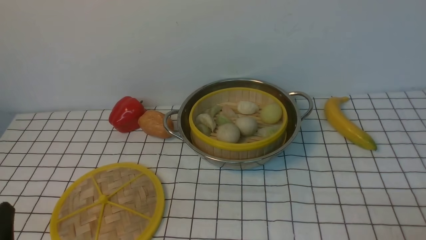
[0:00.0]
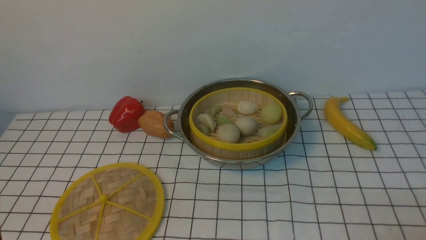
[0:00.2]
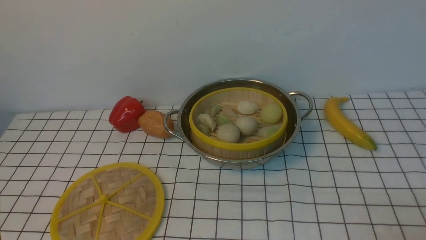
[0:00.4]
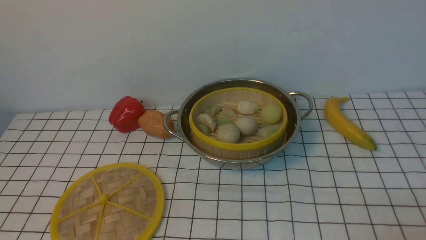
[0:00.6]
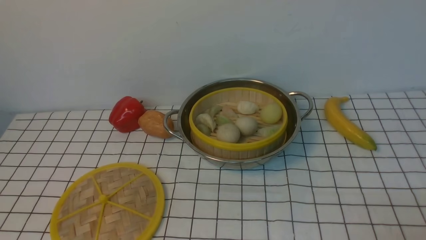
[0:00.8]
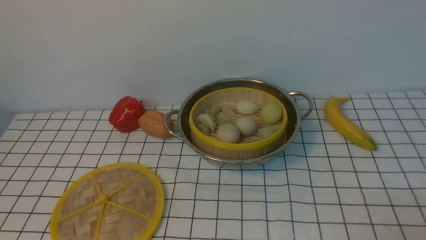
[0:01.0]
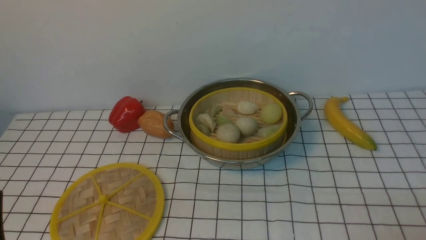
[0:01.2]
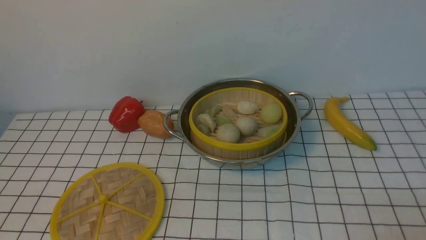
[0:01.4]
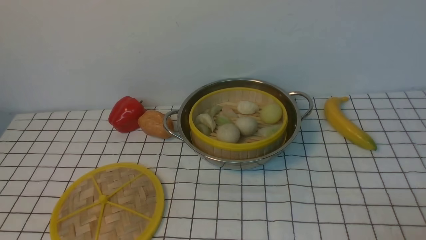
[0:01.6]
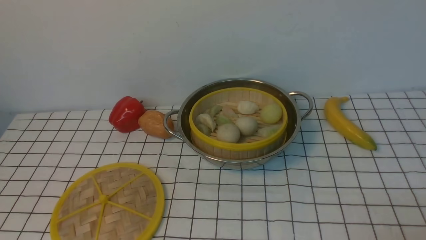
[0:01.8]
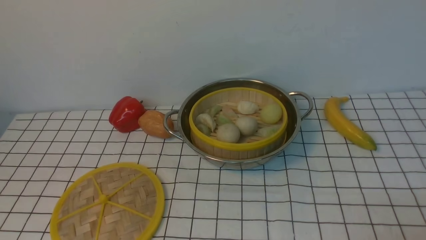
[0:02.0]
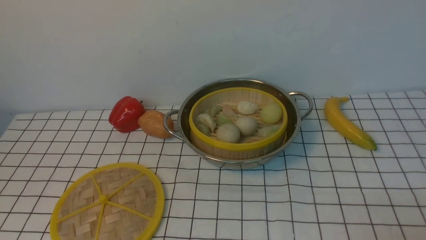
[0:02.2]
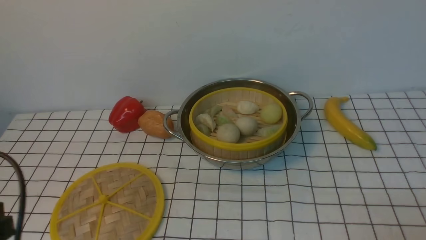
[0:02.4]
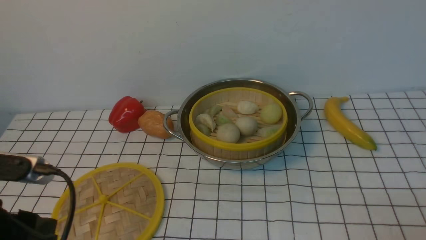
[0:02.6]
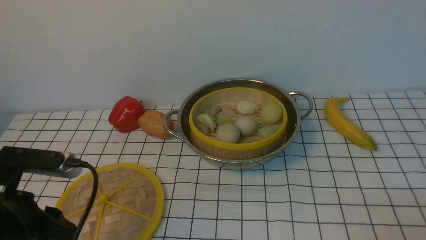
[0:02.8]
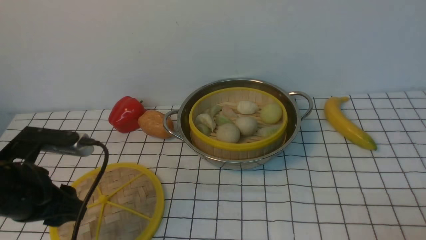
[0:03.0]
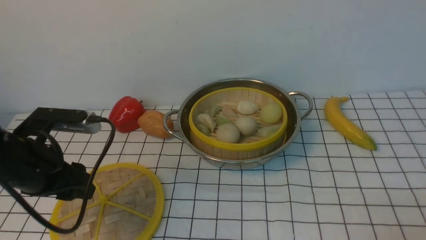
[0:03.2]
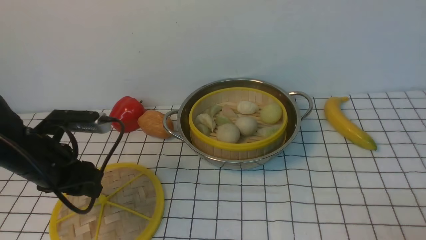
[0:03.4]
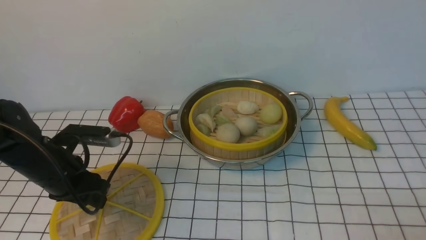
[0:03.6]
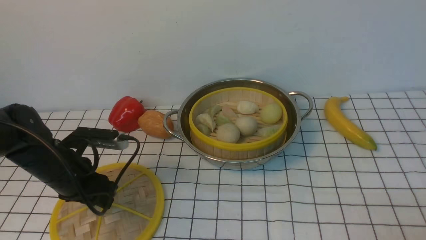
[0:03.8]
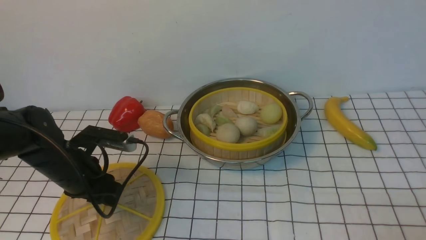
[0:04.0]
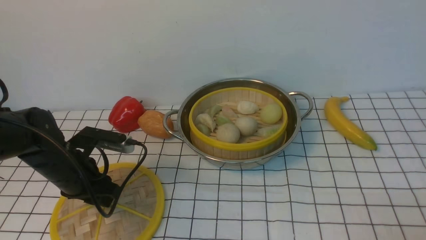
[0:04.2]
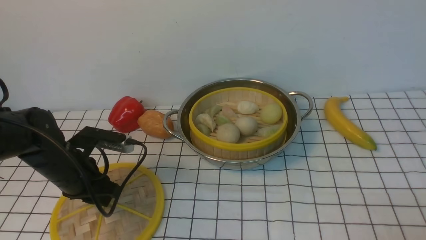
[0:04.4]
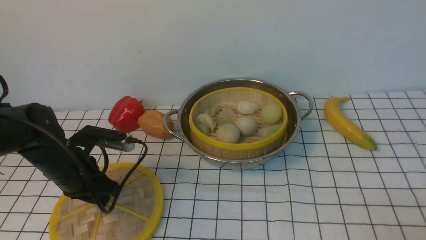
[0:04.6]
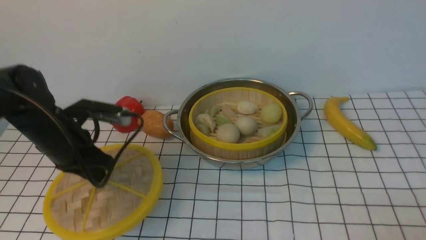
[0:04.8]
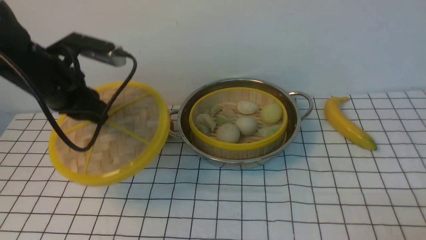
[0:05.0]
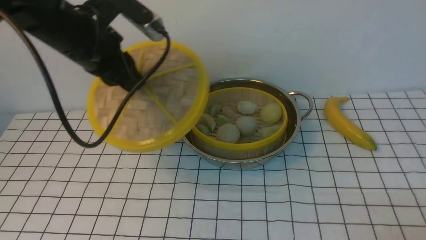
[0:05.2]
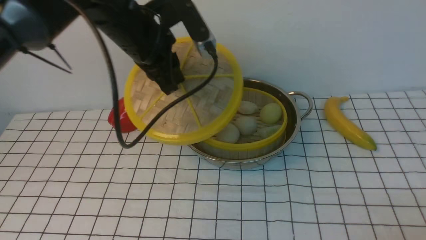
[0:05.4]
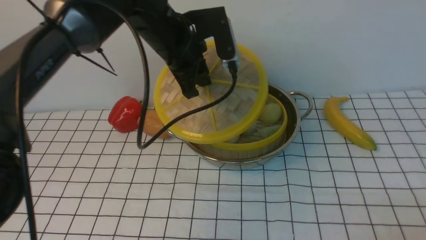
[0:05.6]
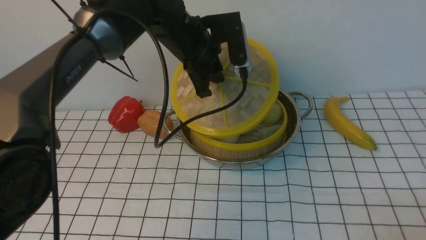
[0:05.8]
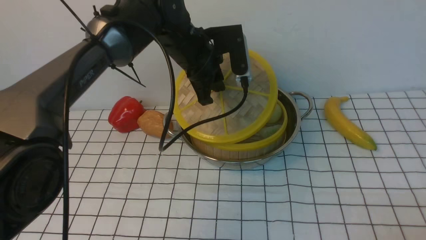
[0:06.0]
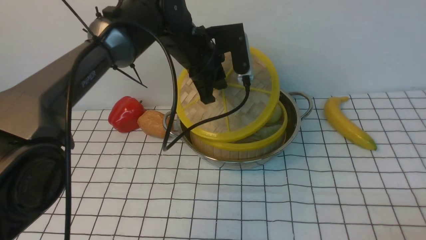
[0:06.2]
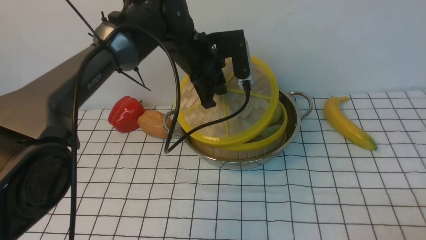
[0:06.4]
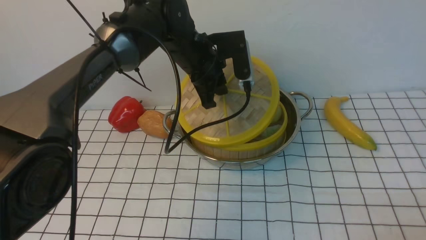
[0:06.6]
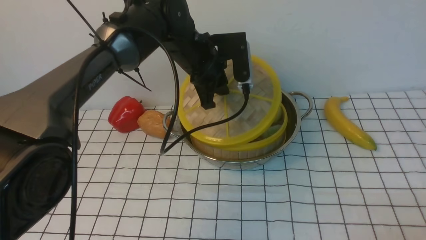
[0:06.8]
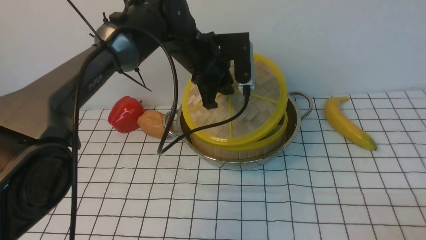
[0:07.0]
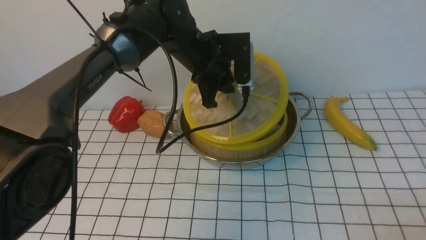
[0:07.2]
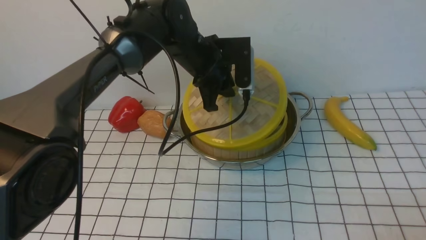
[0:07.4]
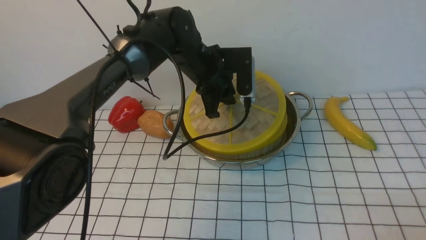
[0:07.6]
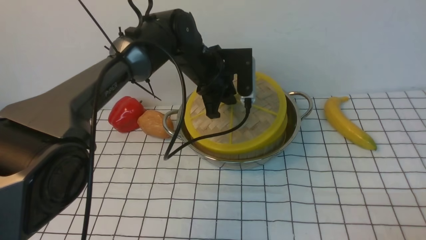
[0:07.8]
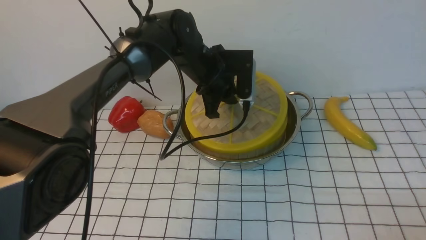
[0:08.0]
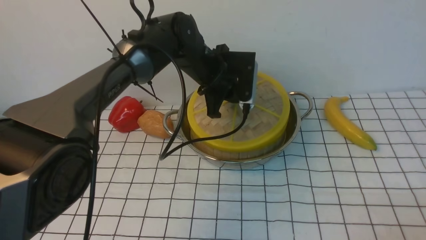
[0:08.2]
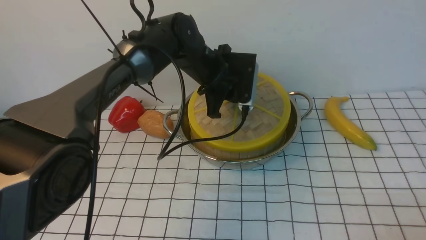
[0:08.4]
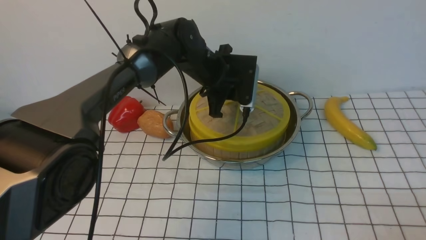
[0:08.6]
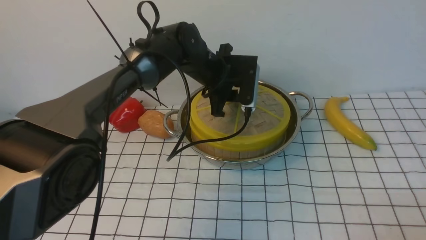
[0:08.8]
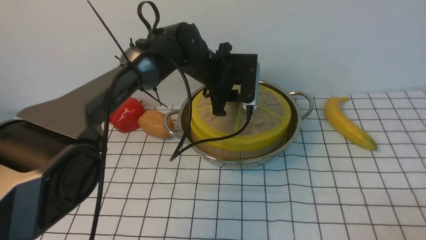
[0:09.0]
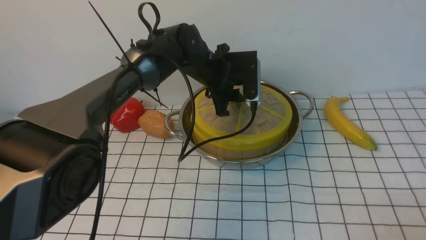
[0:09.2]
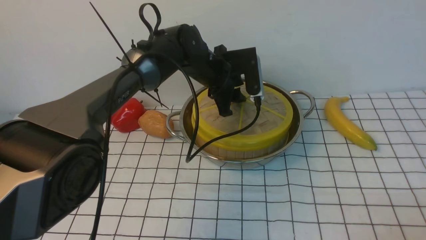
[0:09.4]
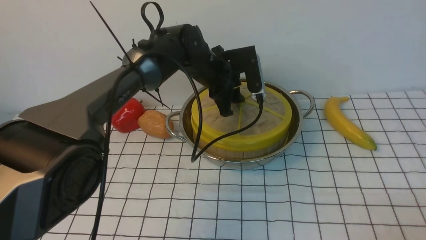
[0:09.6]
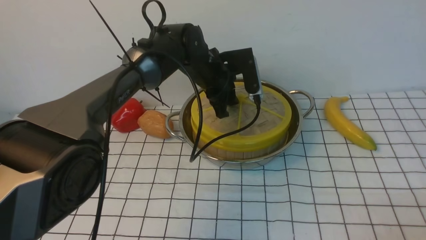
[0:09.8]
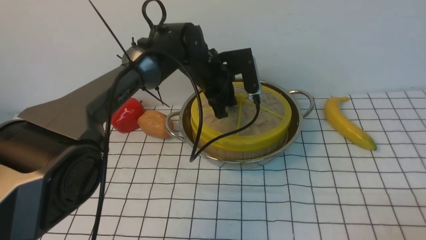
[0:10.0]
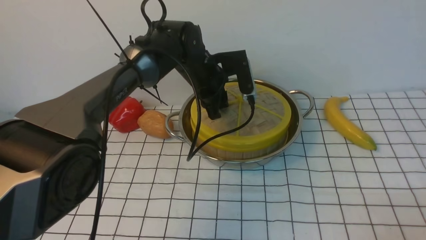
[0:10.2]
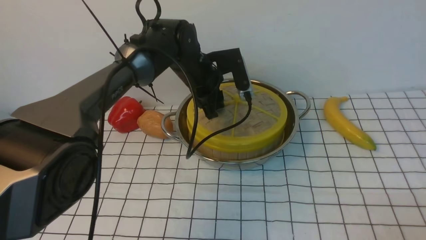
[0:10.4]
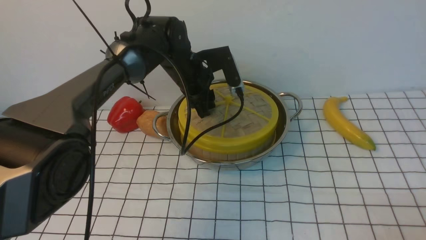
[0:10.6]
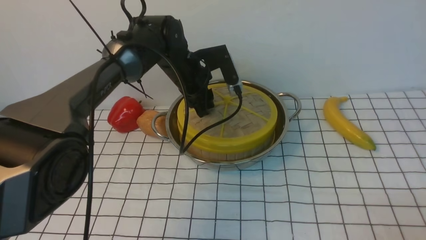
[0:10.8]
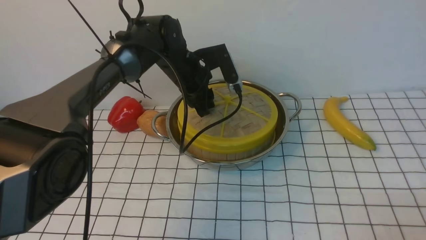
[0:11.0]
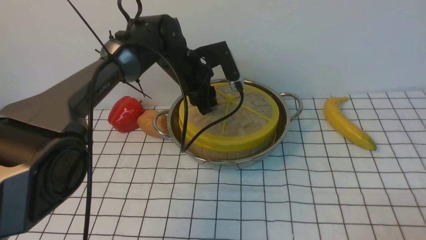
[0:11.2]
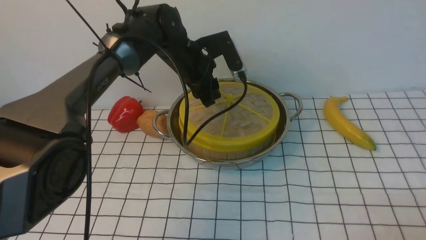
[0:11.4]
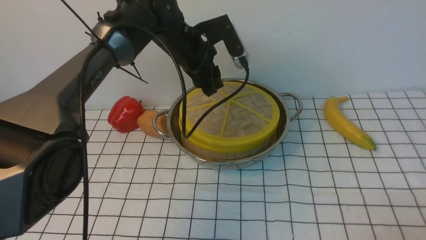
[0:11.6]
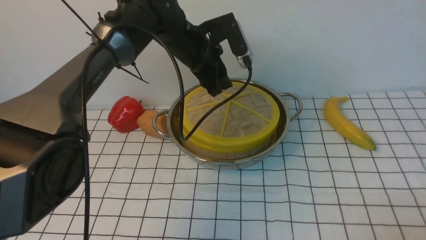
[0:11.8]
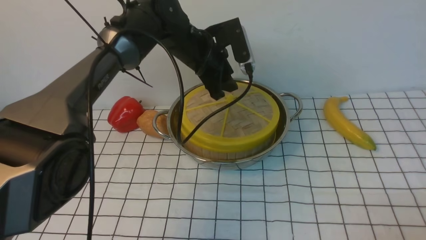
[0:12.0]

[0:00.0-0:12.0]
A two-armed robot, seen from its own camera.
Task of the whole recording: place the steamer in the pot on the white tablecloth, and put the lid on the steamer.
Step, 0:00.0 to 0:04.6: use the left arm to lift the lid of the steamer.
0:01.6 to 0:03.0: The left gripper goes approximately 15 cm forward, and closes up.
0:03.0 to 0:04.4: The left gripper shifts approximately 15 cm forward and downward.
0:04.4 to 0:06.0: The left gripper shifts some 25 cm to the right, upward and forward.
0:07.6 to 0:09.0: The left gripper opens its fingers.
0:10.4 to 0:12.0: The grippers stay close to where they were, moving slightly.

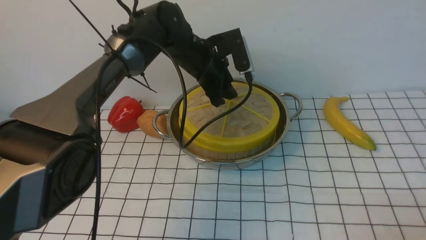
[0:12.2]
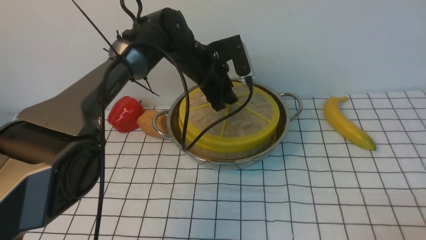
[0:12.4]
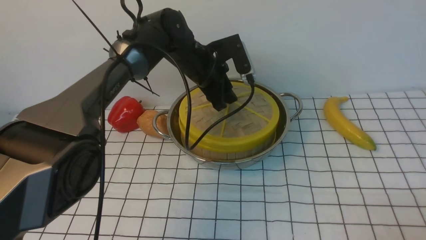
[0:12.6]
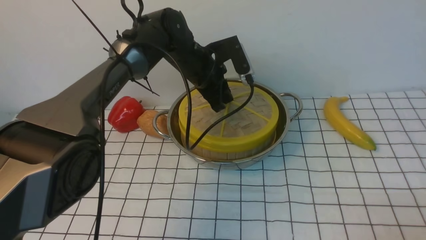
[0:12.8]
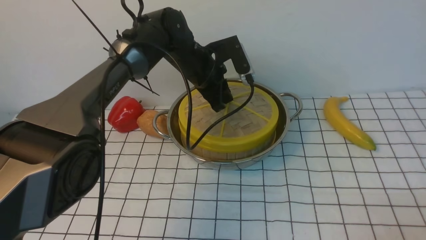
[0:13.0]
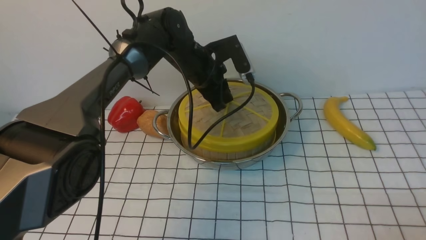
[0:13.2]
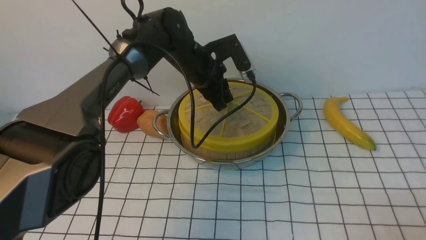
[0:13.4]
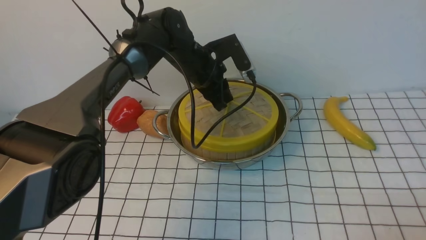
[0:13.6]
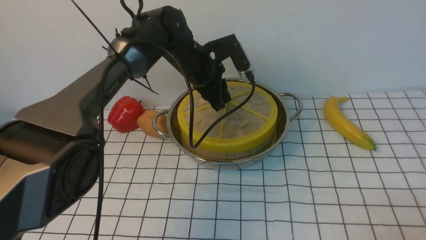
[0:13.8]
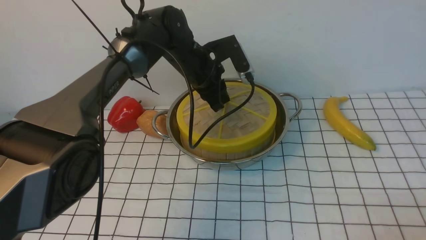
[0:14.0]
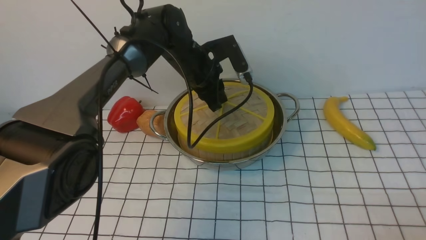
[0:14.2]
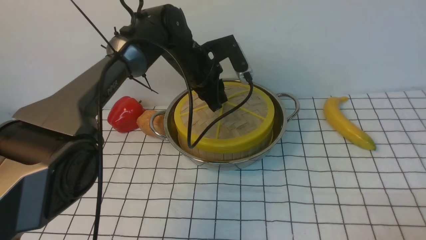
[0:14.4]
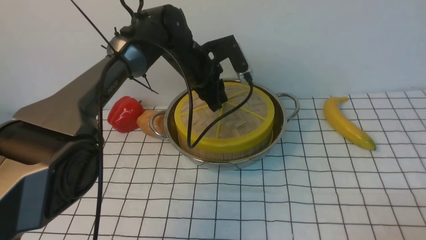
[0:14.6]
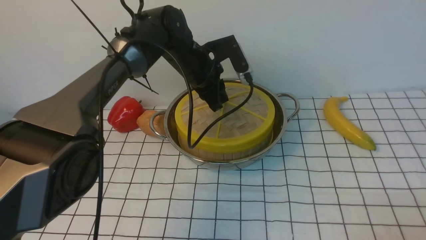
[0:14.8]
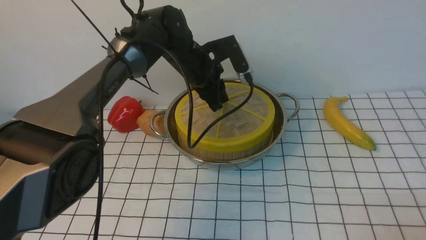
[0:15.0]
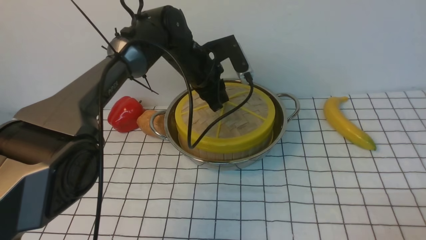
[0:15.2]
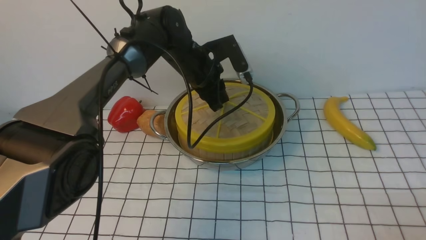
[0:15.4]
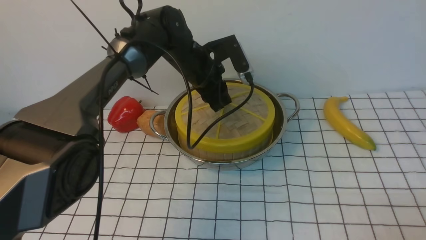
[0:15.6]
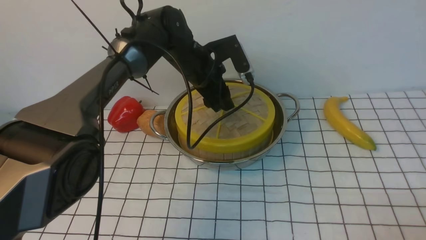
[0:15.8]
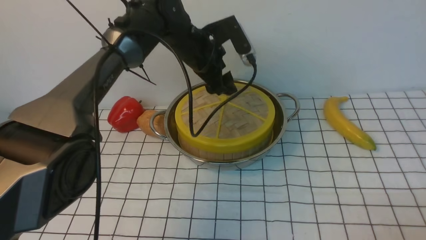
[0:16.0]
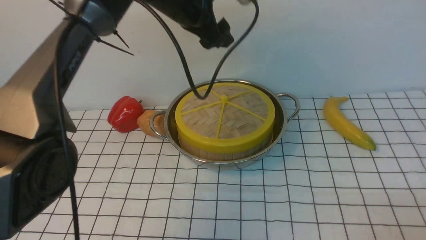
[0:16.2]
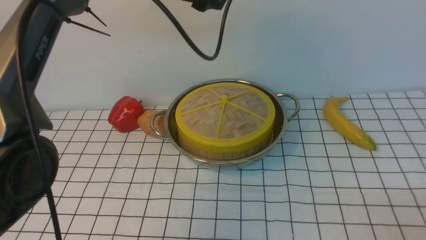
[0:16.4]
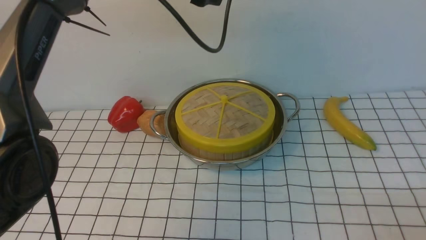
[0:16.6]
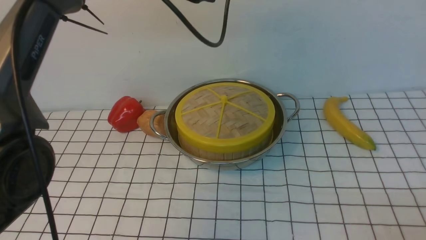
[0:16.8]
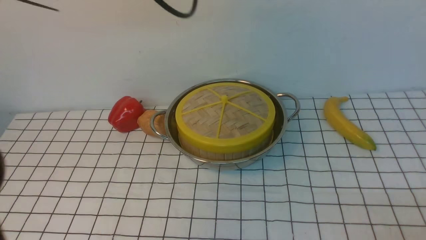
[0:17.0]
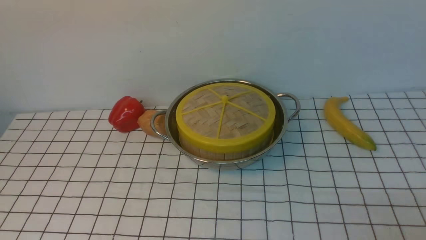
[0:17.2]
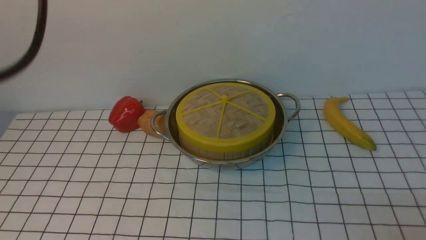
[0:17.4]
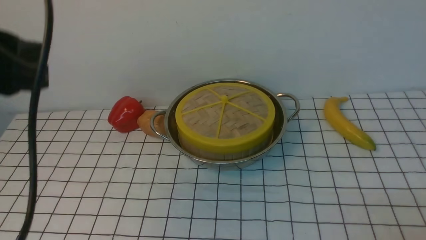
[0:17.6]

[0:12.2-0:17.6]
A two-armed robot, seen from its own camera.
Task of the whole recording: place the steamer in the pot on the white tablecloth, and put the lid on the steamer.
Step, 0:12.2 to 0:16.0: use the left arm to place the steamer lid on the steamer.
0:12.2 to 0:13.6: The left gripper closes.
0:13.6 to 0:15.0: Both grippers stay about where they are.
0:15.0 to 0:16.2: The left gripper heads upward, covering roughly 10 cm, and opens its fingers.
0:16.2 to 0:17.6: The left gripper travels backward, to the left and upward by about 35 cm, and closes.
